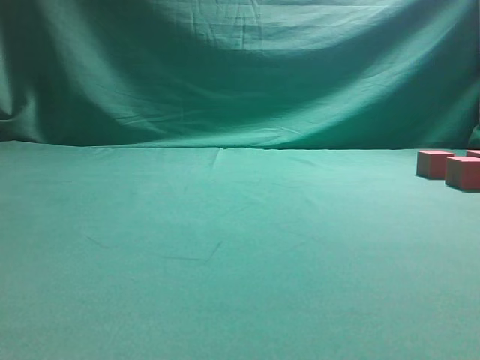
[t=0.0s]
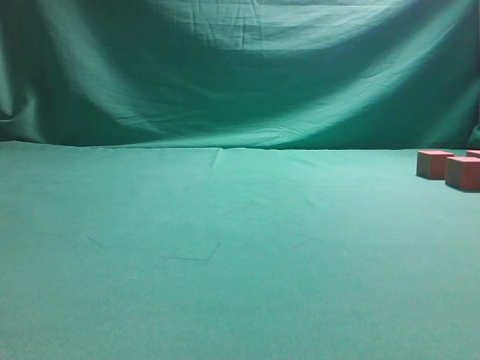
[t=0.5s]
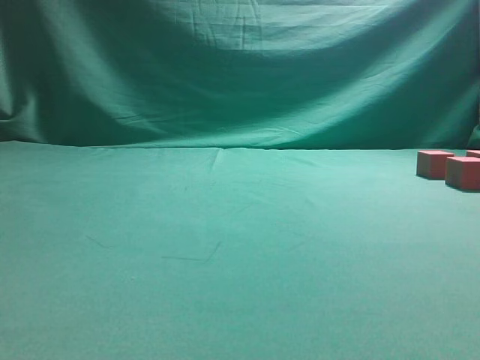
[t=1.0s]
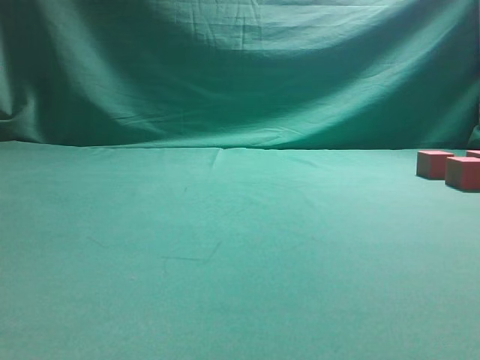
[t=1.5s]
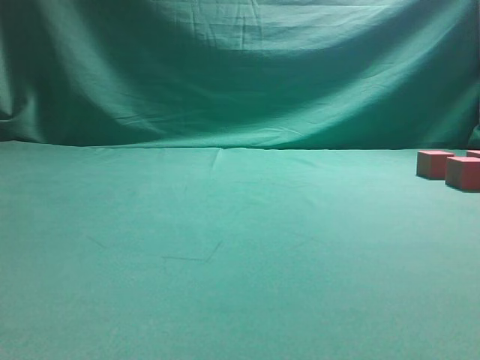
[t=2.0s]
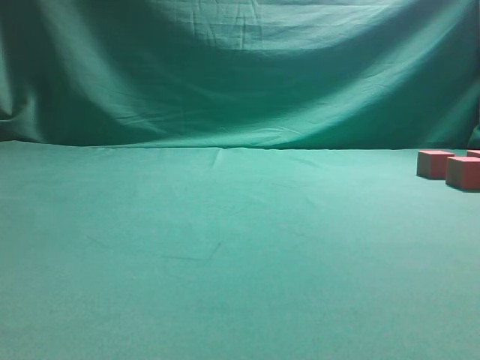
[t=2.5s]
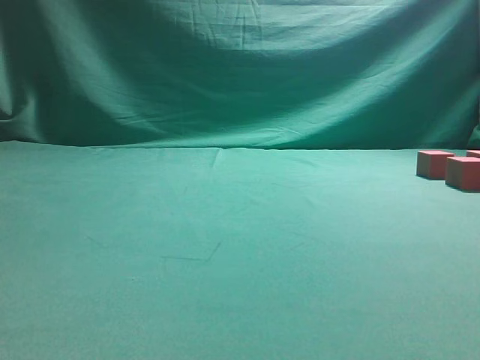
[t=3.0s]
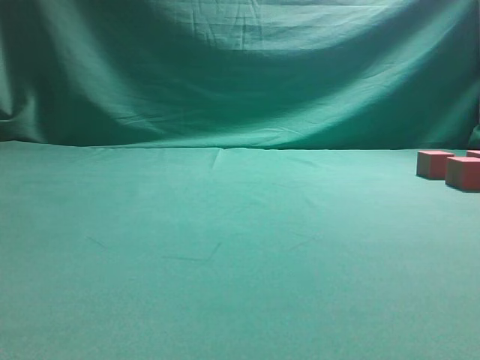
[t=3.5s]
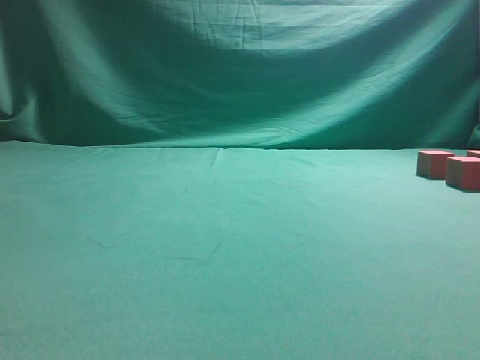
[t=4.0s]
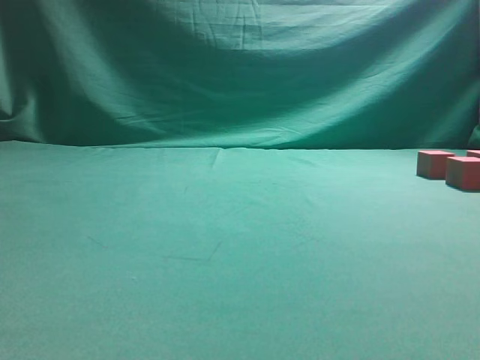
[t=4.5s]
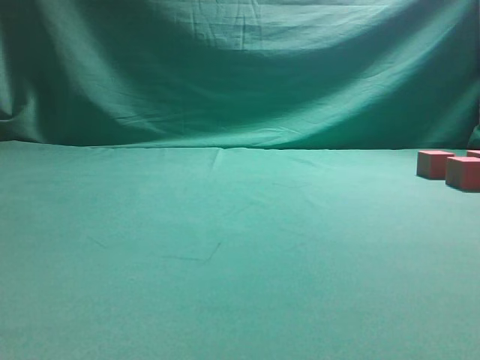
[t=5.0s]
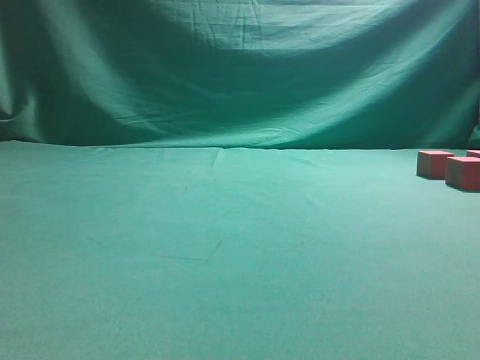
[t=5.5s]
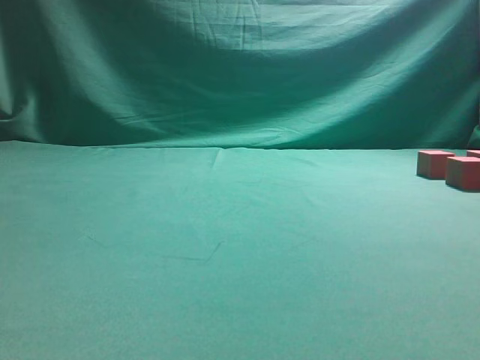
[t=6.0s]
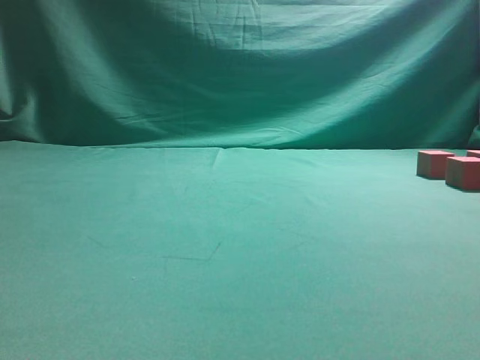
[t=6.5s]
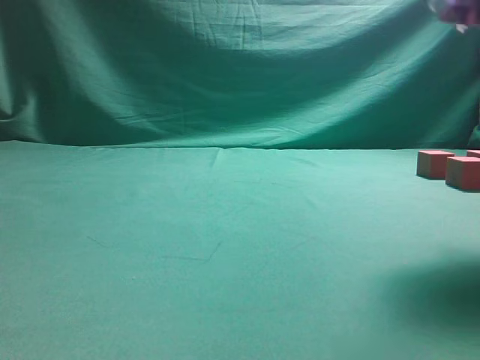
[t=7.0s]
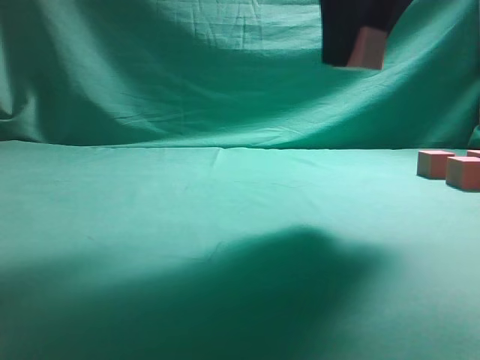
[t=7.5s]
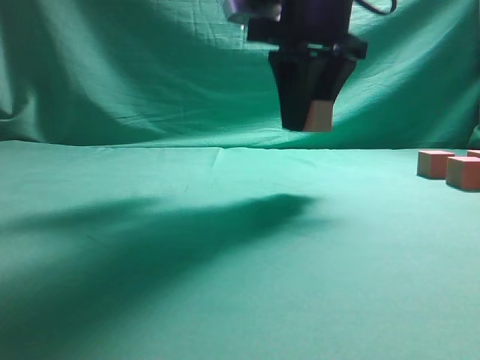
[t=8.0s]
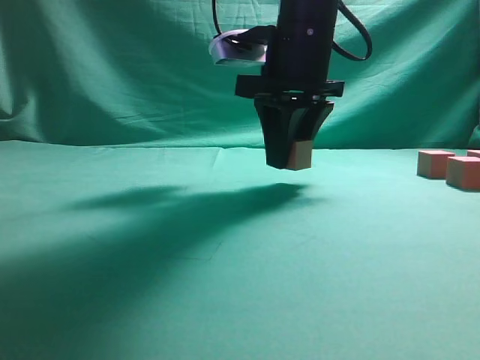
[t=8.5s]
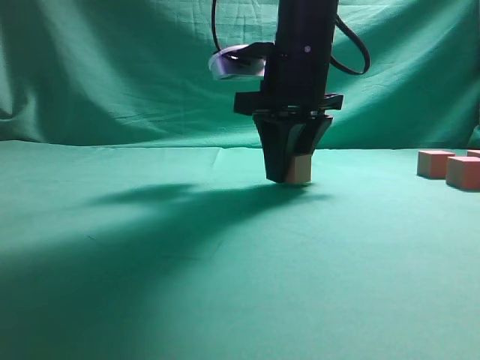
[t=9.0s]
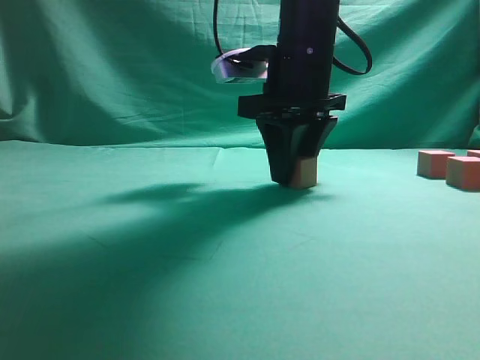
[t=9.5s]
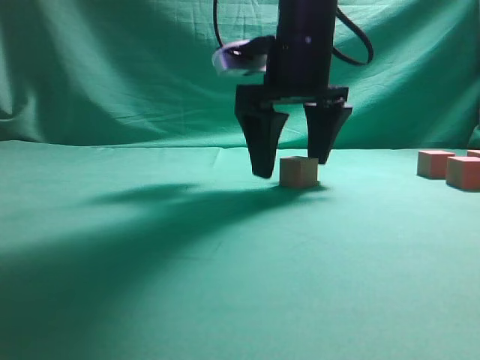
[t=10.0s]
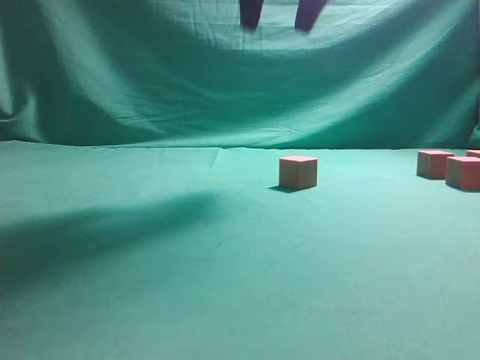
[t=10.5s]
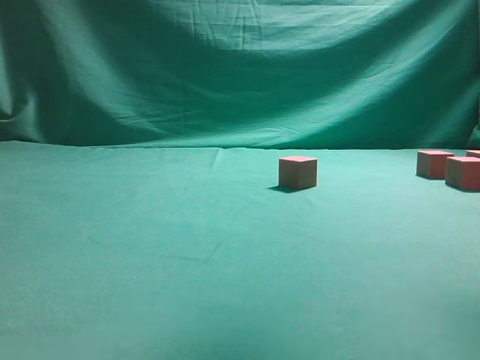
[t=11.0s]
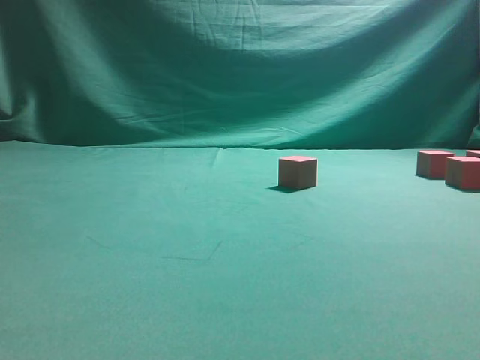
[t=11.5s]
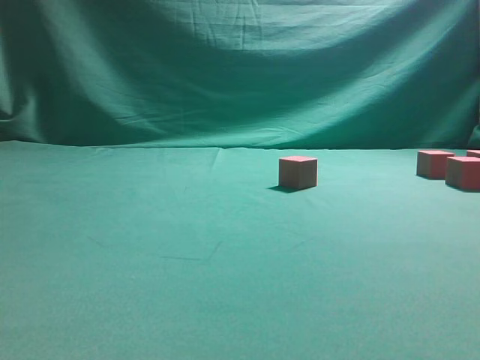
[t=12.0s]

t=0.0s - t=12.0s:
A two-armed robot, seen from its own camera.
Task of the whole recording: pick up the multiple cubes in two columns one by one and place them in another position on the table.
Step, t=0.0s - t=7.0s: Pick up the block on the table.
Step, t=7.5s - t=10.0s: Place the block at the correct position to assemble the letter S.
t=6.0s - t=8.0s: The right gripper heads to the left and forward, covering some 20 cm.
t=8.0s - t=10.0s: The right gripper changes place by about 5 cm, and opens its fingers.
t=10.0s - t=12.0s: The right gripper is displaced to the right and backward by about 30 cm.

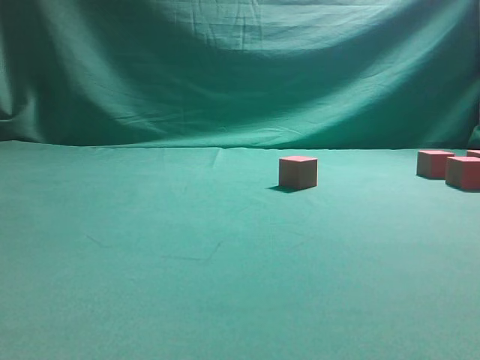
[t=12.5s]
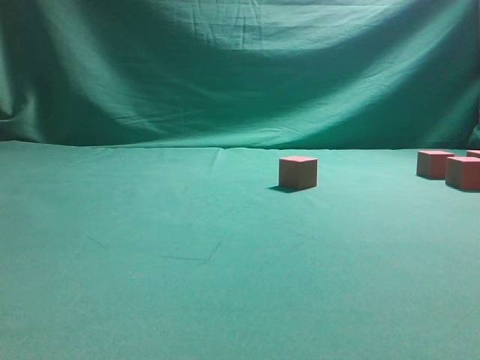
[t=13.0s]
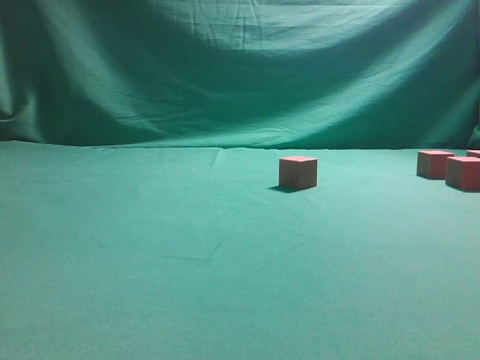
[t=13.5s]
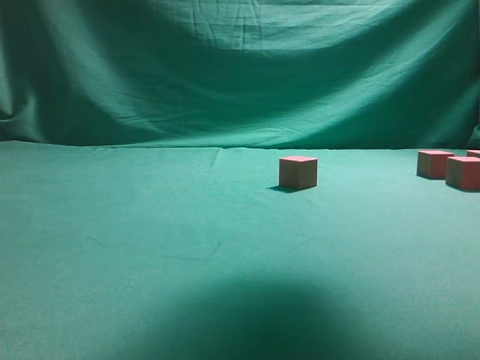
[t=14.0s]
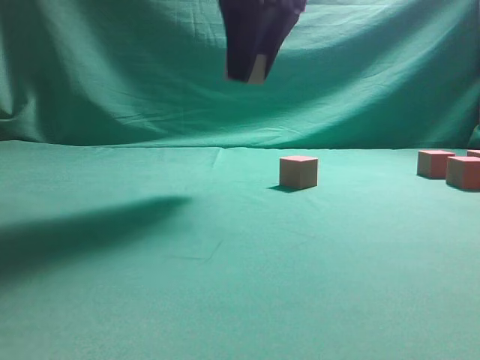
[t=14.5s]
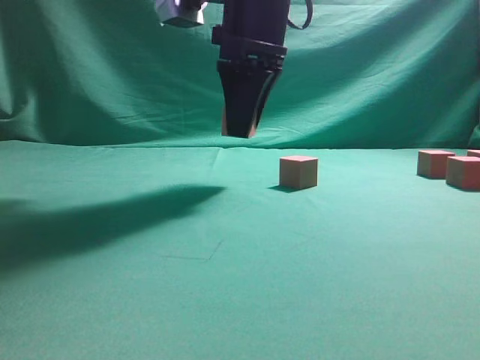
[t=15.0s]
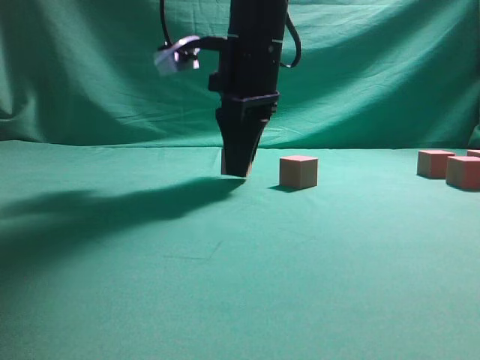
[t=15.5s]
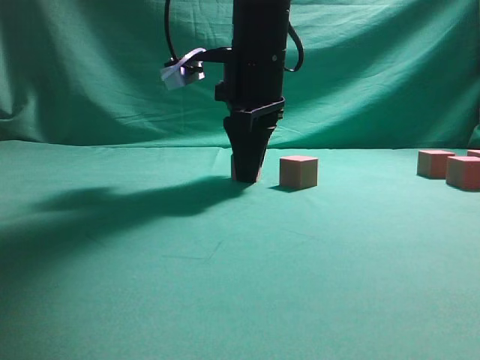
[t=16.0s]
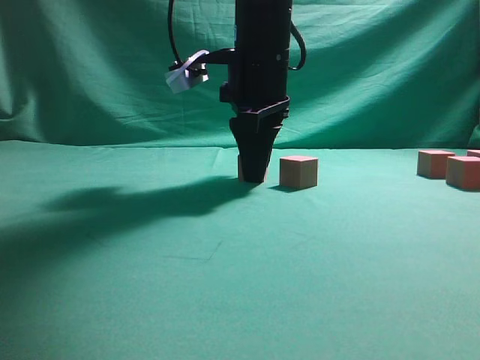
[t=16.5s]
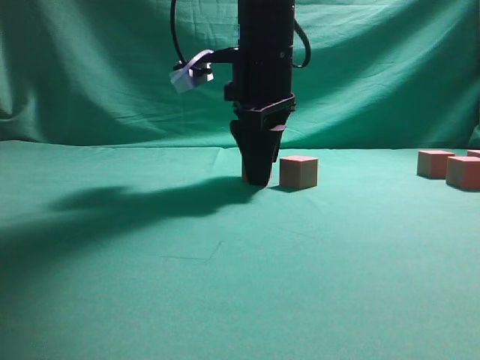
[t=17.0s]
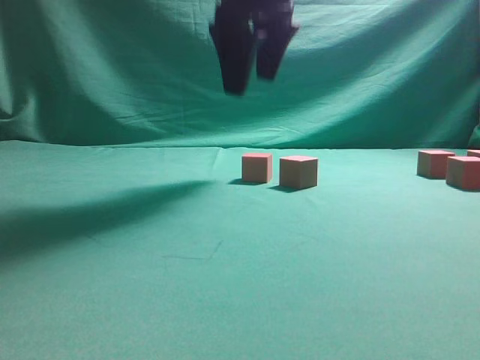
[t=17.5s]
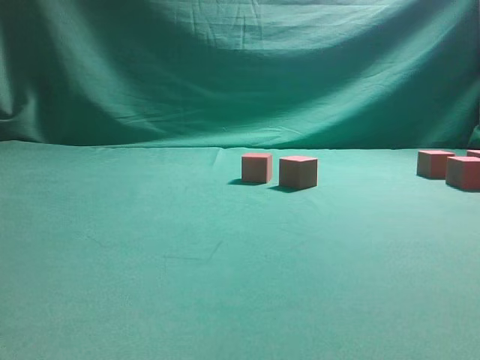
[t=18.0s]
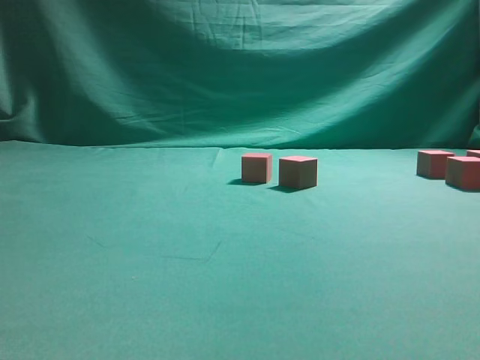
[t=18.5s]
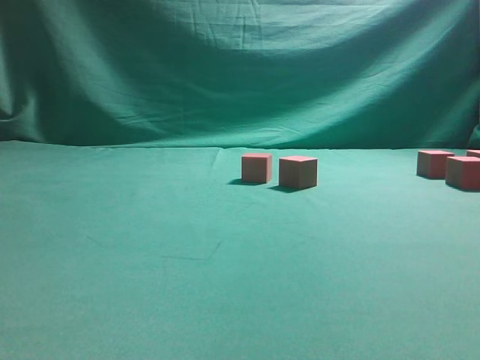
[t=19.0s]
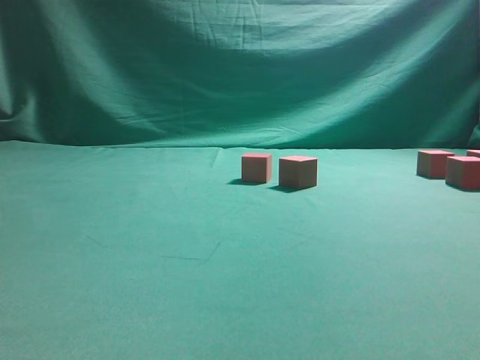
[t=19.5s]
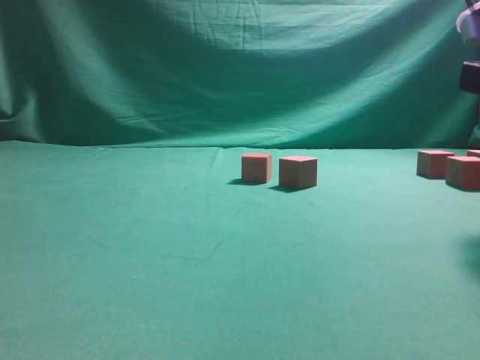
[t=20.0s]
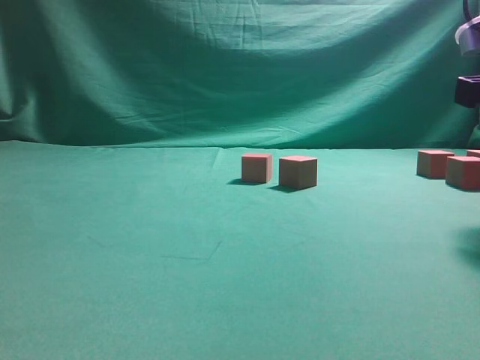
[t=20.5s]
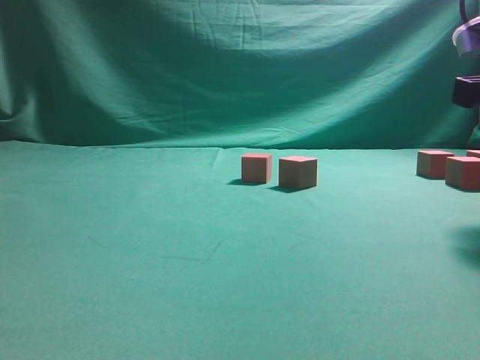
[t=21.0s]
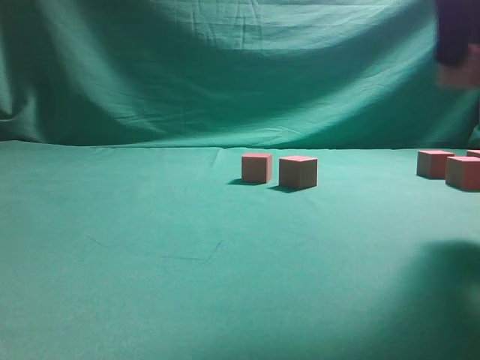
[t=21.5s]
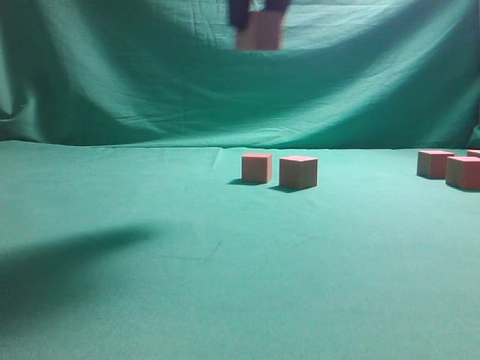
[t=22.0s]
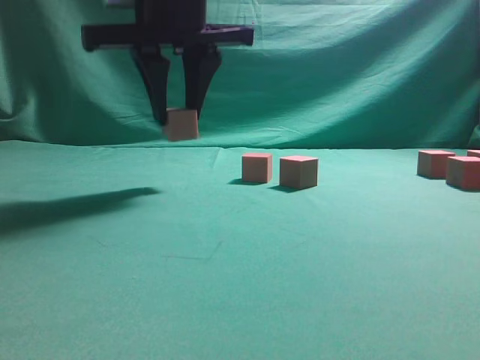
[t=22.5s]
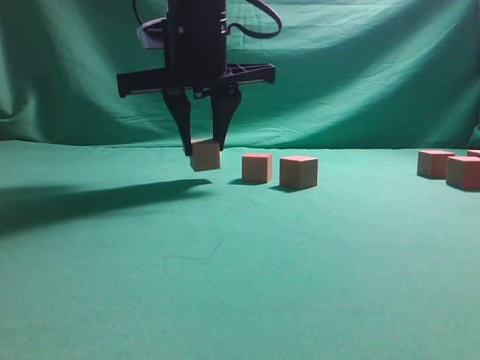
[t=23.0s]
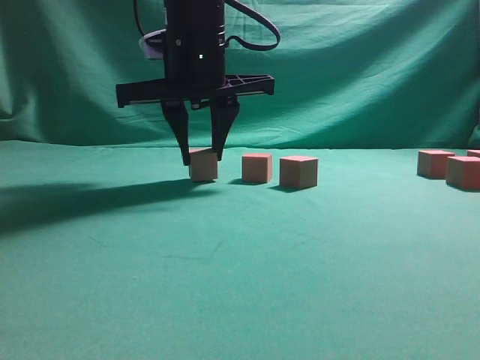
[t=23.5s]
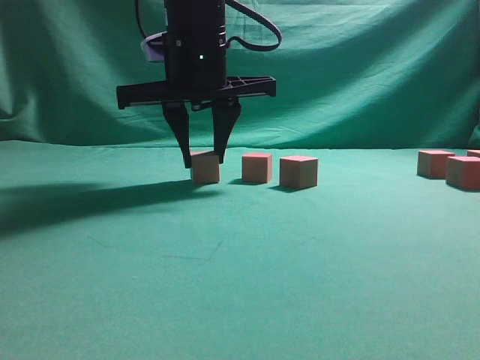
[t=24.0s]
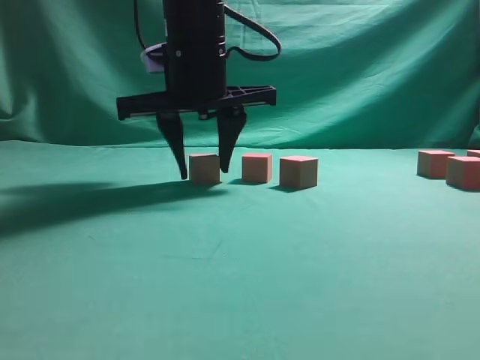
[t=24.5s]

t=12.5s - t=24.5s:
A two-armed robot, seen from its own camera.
Task of the whole recording: pick up the multiple cubes in two columns one by one and place them in another position on the table.
Step, t=14.0s - t=17.5s: Place the block at the correct position to assemble the letter S.
Step, t=18.0s - t=21.5s: Pick up the block on the table.
t=12.5s - t=14.5s: The right gripper heads to the left, forward and upward, covering about 30 cm, and closes its fingers.
t=14.5s - t=16.5s: The right gripper goes about 10 cm downward.
t=16.5s - t=18.5s: The right gripper shifts about 30 cm upward, backward and to the right, and opens its fingers.
t=18.5s - t=20.5s: The right gripper is displaced downward by approximately 20 cm.
t=20.5s - t=22.5s: The right gripper travels to the left by some 30 cm.
t=22.5s - t=24.5s: The right gripper travels downward by about 5 cm.

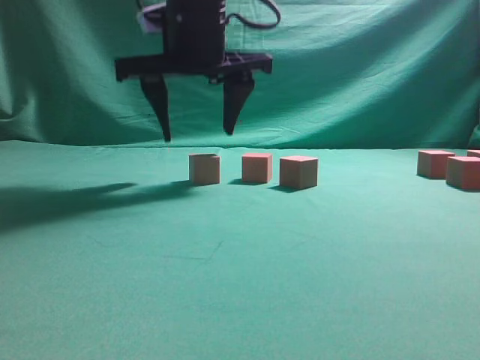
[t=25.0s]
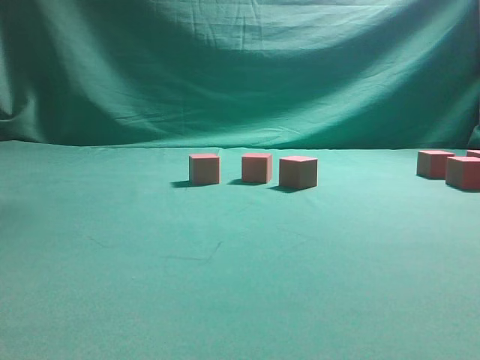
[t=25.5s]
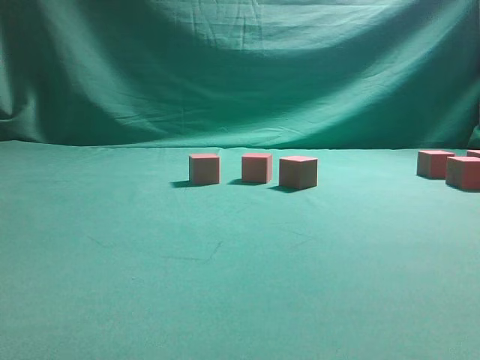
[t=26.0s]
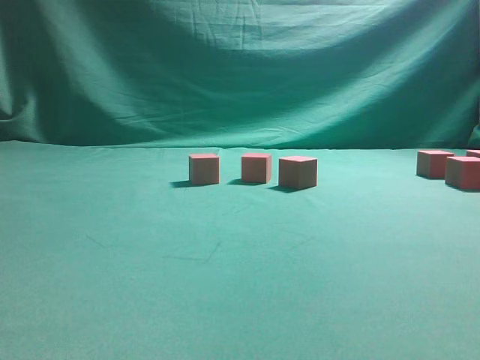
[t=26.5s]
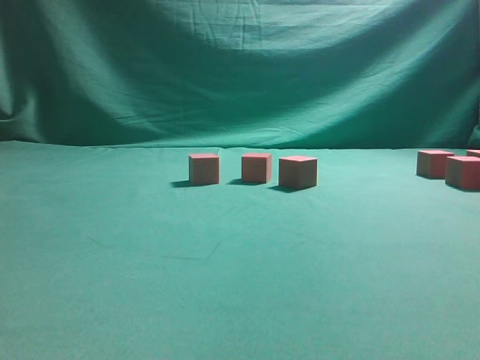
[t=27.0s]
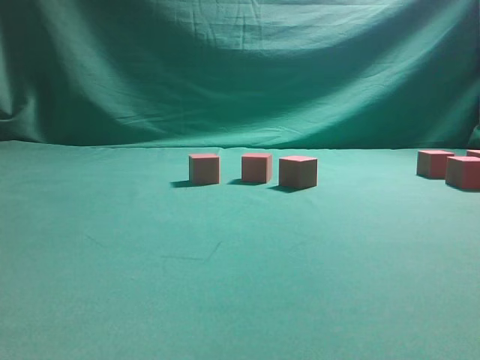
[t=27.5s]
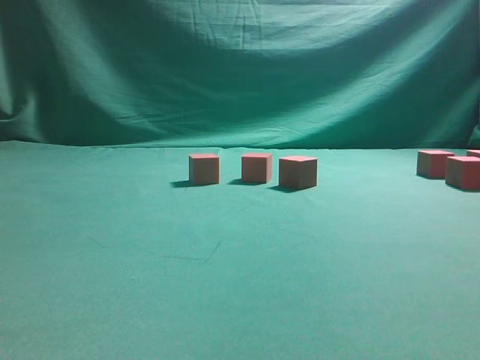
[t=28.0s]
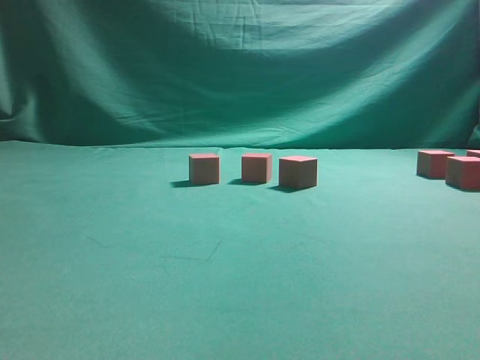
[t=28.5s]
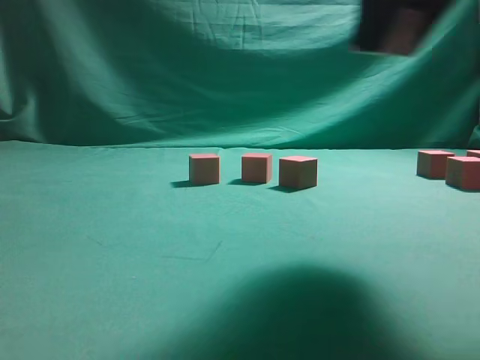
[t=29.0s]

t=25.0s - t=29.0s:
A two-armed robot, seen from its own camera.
Task of the whole recording: pick up the multiple cubes in two columns one by one and place them in another position on the table.
t=25.0s - t=27.0s: The right gripper goes roughly 35 cm to the right and backward.
t=27.0s - t=29.0s: The right gripper goes approximately 15 cm to the left, and closes its fingers.
